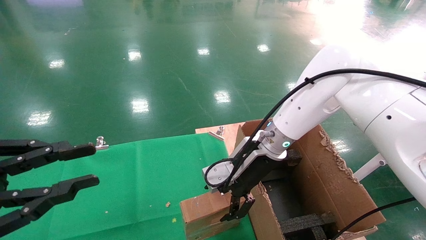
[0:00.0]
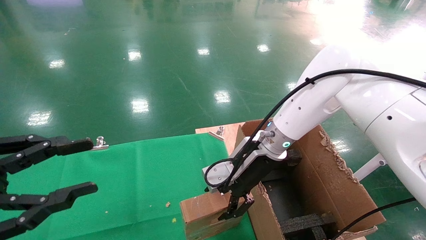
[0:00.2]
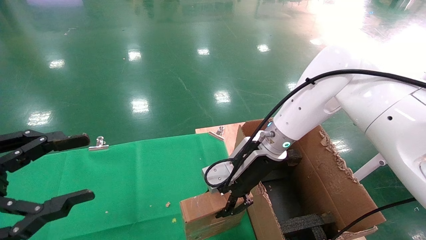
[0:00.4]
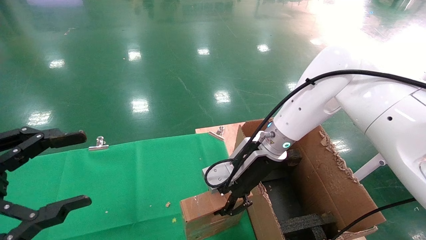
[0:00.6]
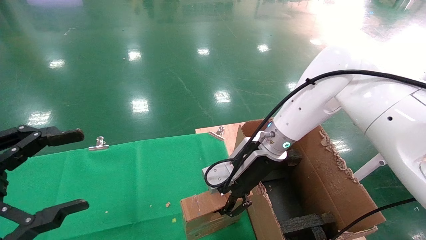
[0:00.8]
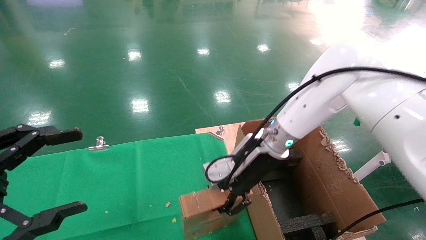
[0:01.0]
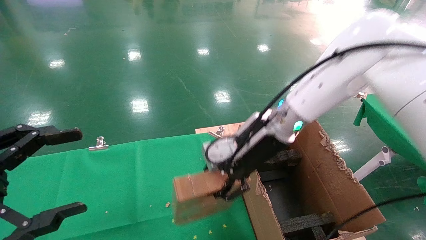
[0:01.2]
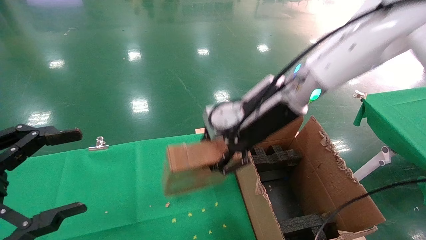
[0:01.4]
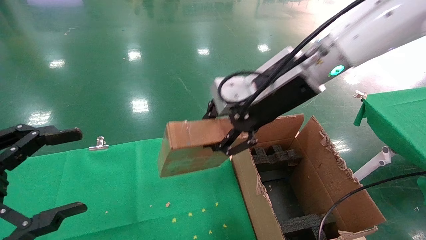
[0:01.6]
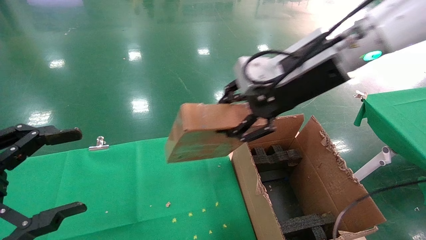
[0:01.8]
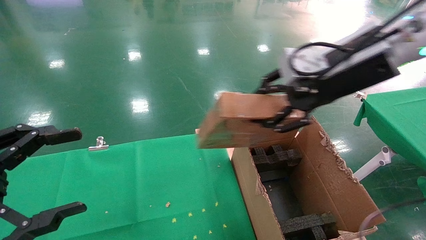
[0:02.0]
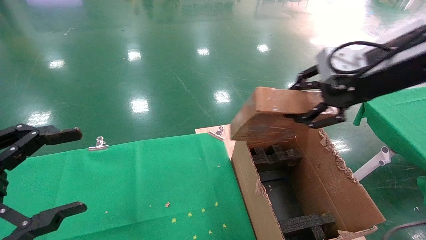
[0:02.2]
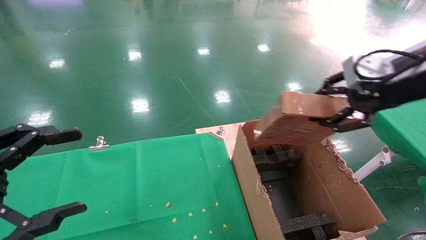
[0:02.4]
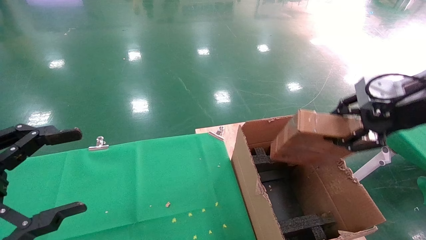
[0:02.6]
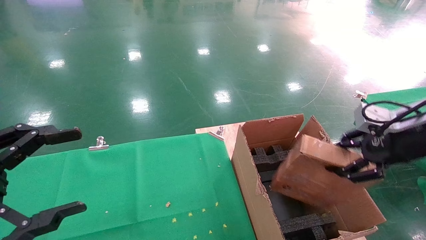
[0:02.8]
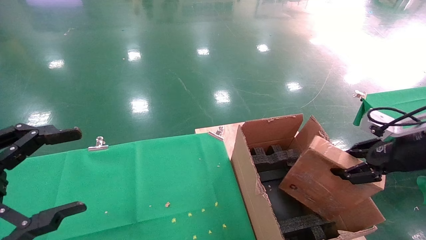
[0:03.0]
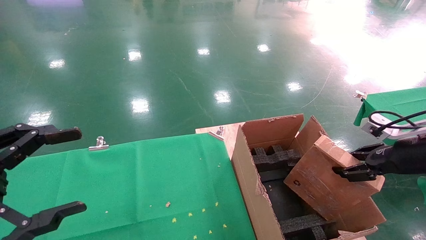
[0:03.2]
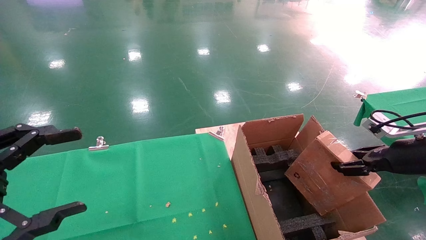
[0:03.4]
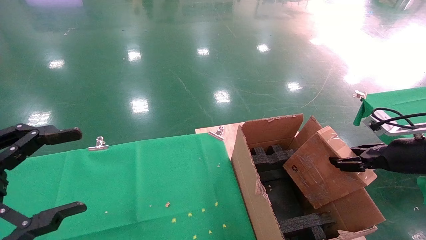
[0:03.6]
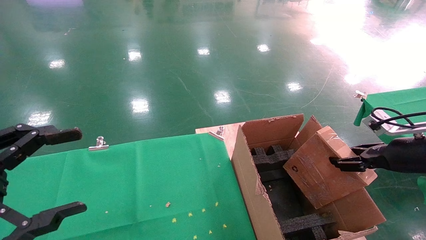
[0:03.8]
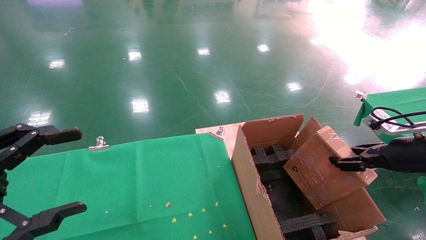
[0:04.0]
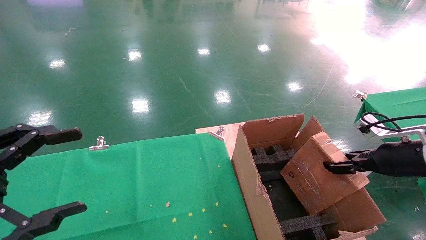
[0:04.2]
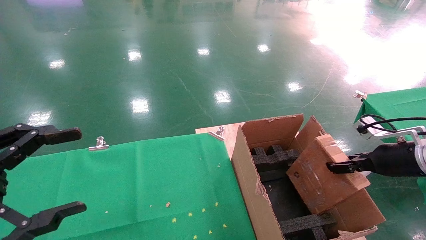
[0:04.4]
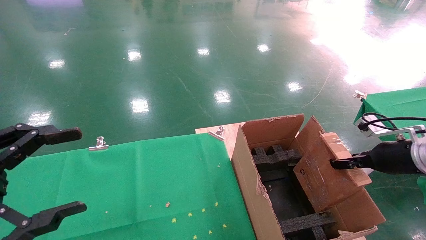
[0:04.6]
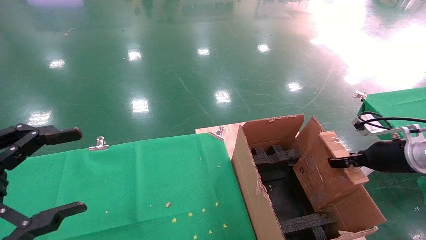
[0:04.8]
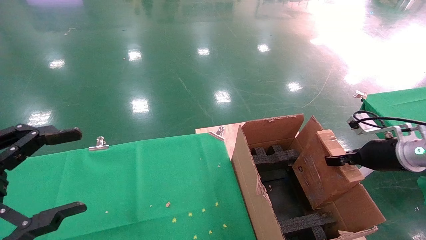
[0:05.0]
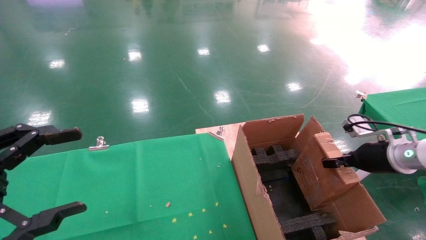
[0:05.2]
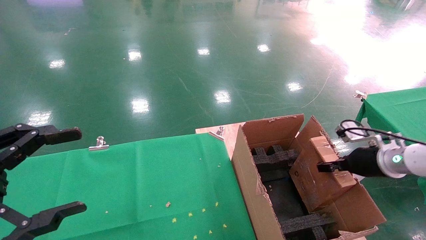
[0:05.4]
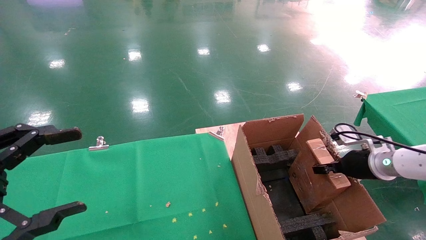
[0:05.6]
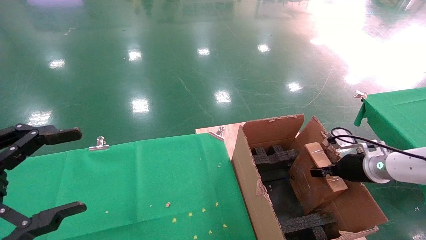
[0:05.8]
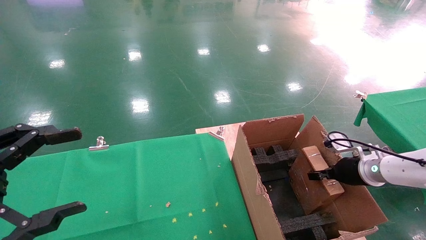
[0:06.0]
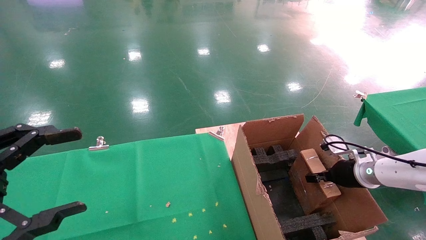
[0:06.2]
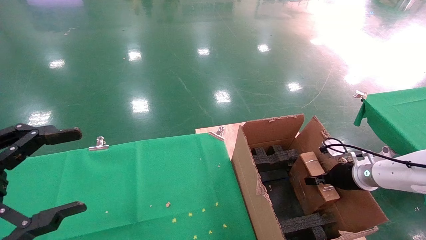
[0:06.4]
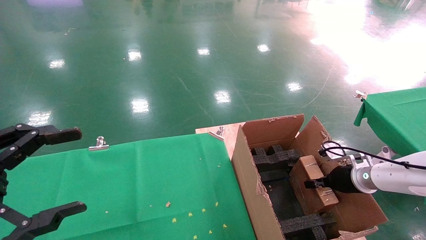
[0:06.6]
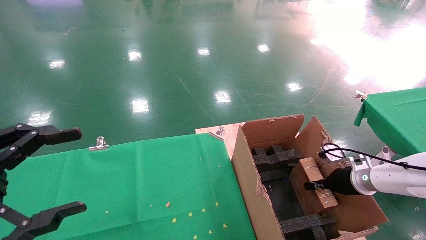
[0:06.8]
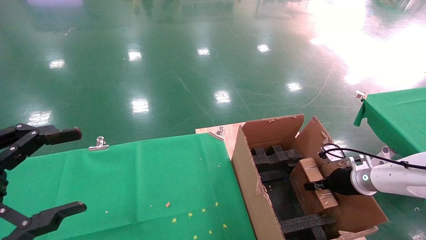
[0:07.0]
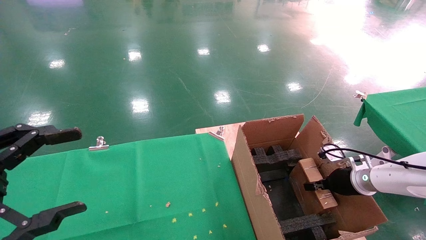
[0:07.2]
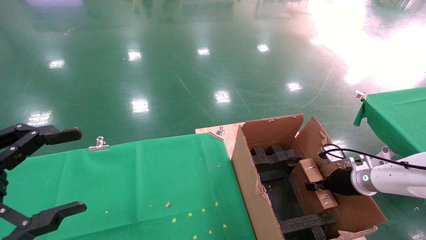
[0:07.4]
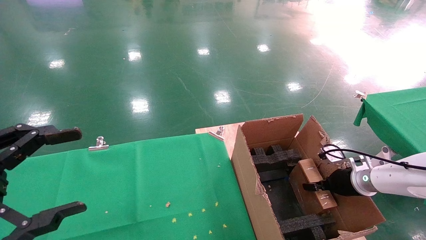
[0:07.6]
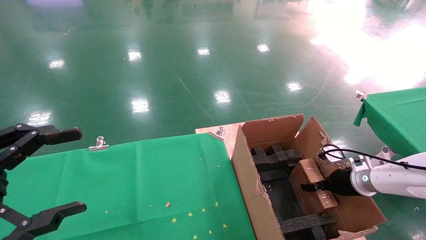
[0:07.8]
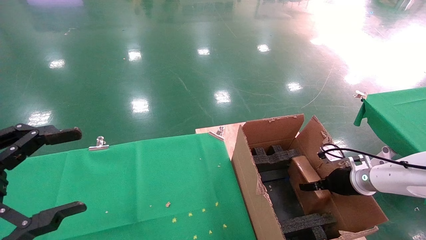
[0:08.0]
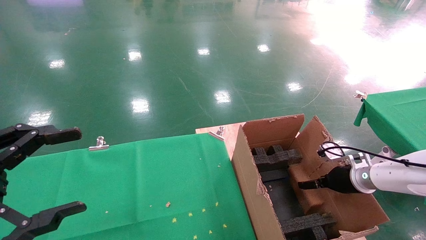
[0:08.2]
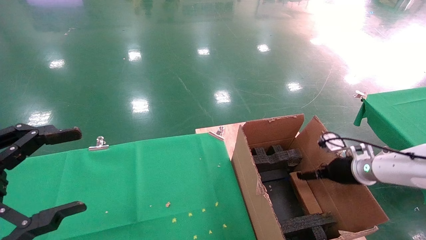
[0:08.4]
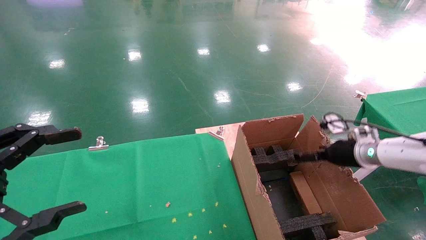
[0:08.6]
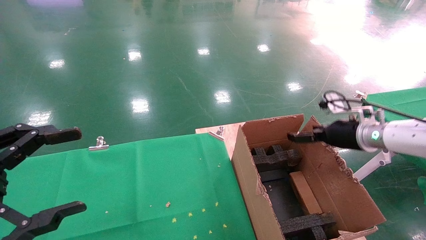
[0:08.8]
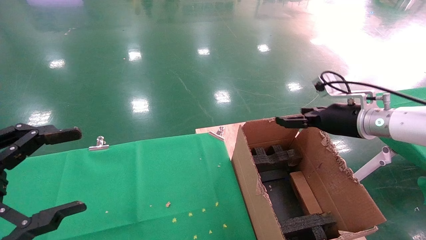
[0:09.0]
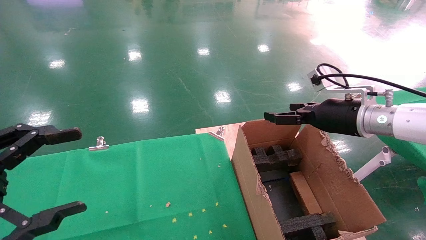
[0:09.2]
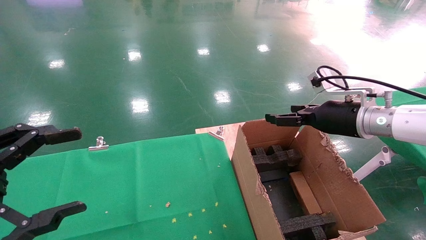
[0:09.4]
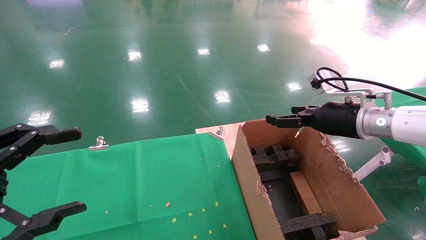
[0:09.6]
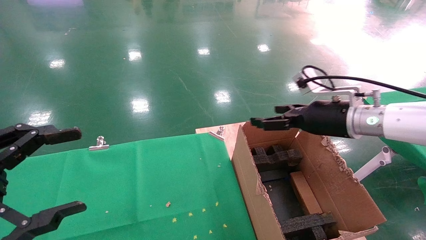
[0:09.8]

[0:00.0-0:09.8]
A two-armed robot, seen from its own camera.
Task of the whole recording: using a robotic arm to pick up a cardboard box and palace it the carton.
Step, 0:00.8 to 0:08.8: Place the mouse and the power cord paper box into the container.
0:00.0 to 0:01.4: The left gripper opens. The right gripper heads upward, covering about 10 cm, and closes its fingers.
0:01.4 to 0:02.8: The right gripper travels to the right by some 25 cm.
0:02.8 to 0:04.2: The right gripper travels downward by approximately 5 cm.
0:04.2 to 0:05.6: The right gripper shifts approximately 10 cm forward and downward.
0:05.6 to 0:07.0: The right gripper is displaced downward by roughly 5 cm.
0:07.0 to 0:08.4: The right gripper ends up approximately 5 cm from where it was, and opens.
0:08.4 to 0:09.8: The right gripper is displaced upward and to the left by roughly 20 cm.

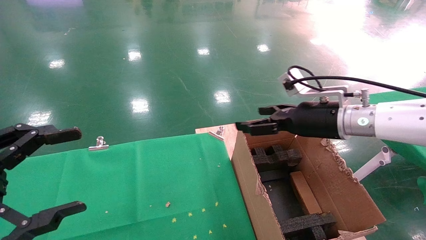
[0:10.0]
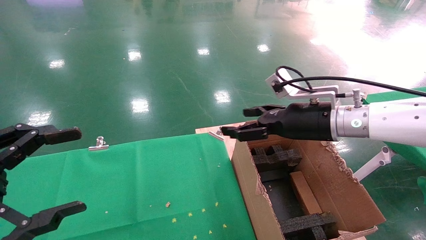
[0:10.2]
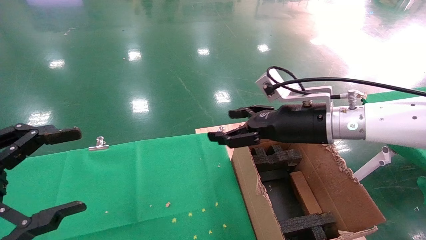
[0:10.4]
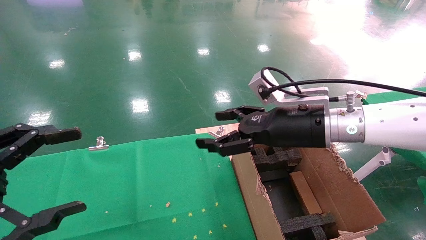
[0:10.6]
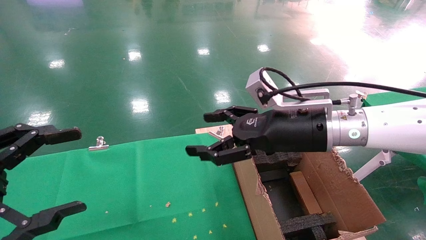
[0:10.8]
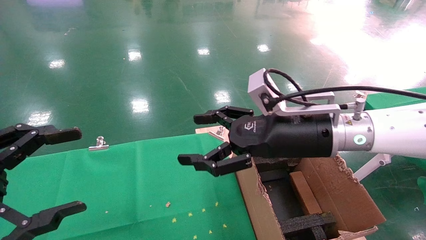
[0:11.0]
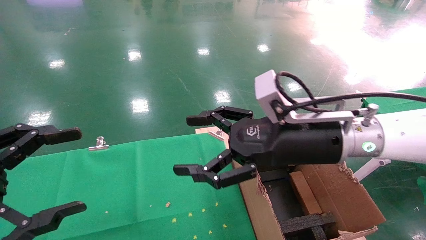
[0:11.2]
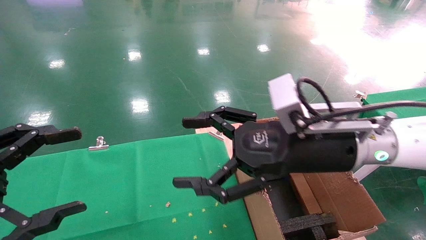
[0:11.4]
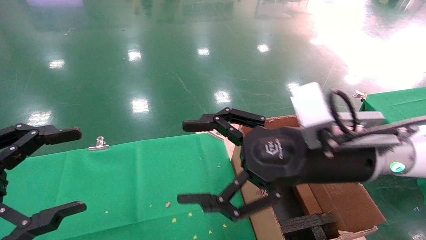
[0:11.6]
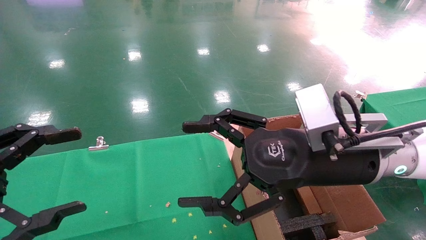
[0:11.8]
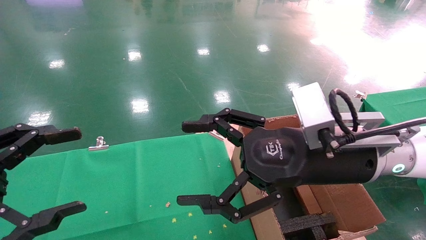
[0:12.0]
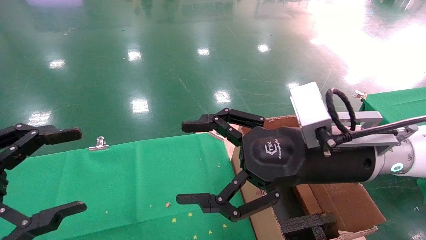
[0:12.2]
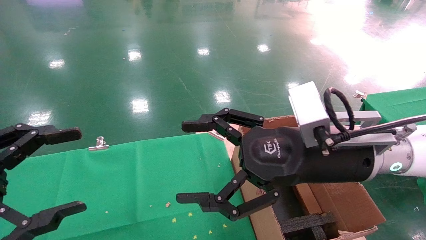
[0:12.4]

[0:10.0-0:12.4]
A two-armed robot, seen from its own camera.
Task of the whole recording: using a robotic arm to pick up a cardboard box and palace it the carton.
0:10.0 to 0:11.2: The right gripper goes some 10 cm to the left and backward.
0:11.2 to 0:12.4: The grippers stay close to where they were, moving slightly.
